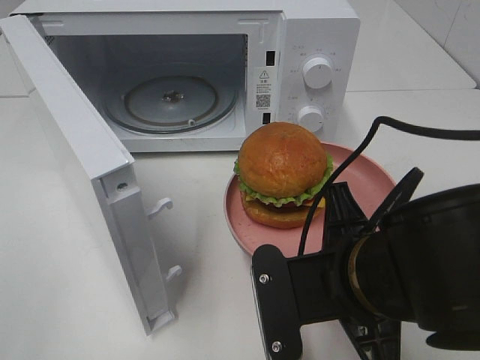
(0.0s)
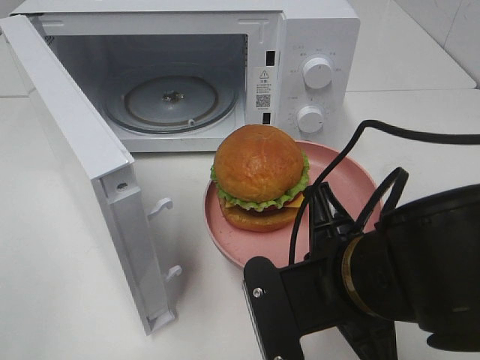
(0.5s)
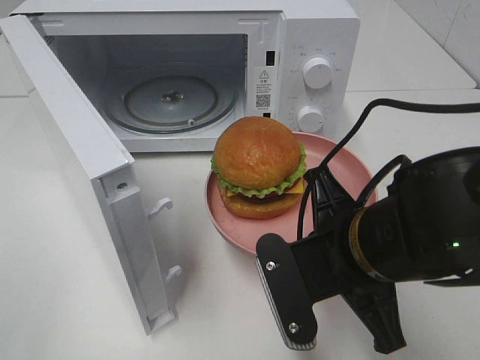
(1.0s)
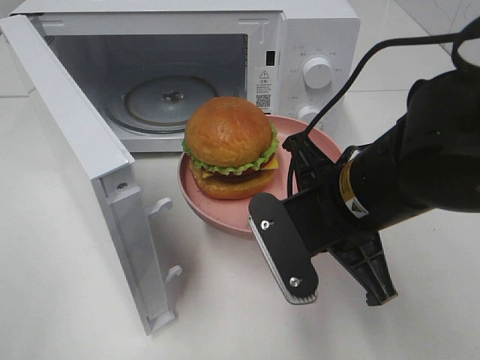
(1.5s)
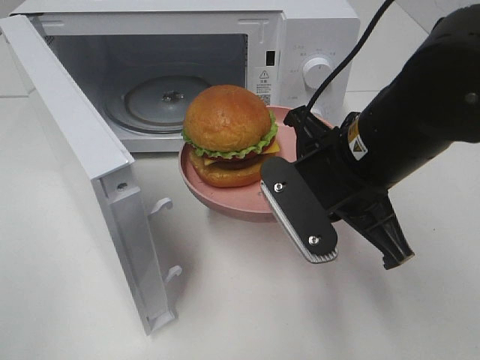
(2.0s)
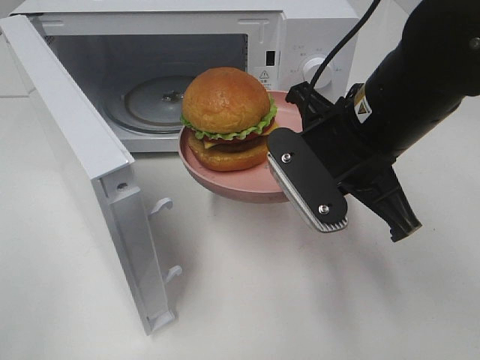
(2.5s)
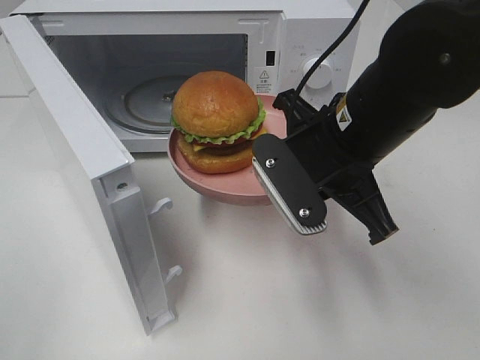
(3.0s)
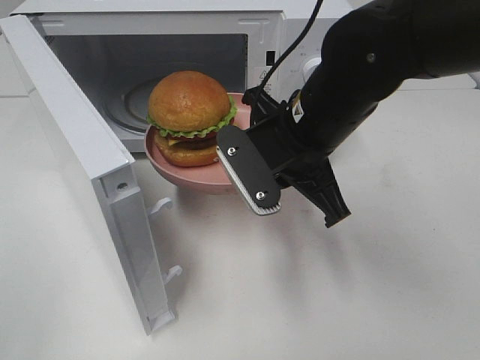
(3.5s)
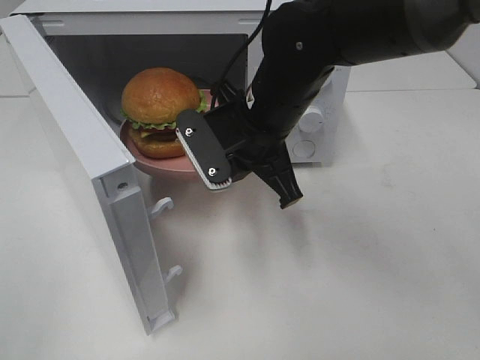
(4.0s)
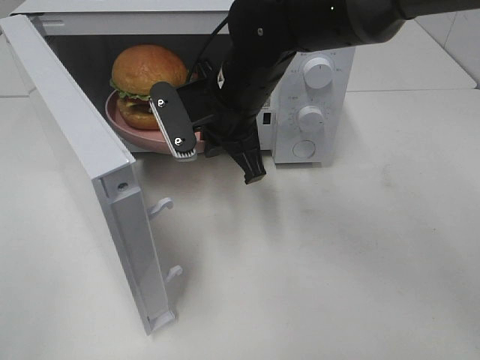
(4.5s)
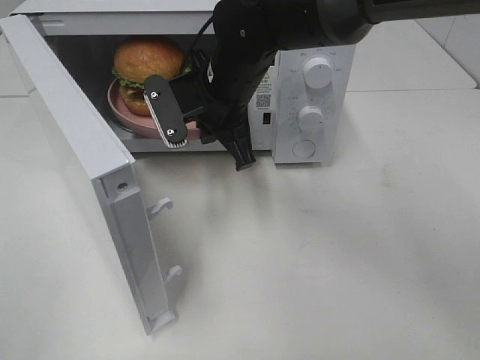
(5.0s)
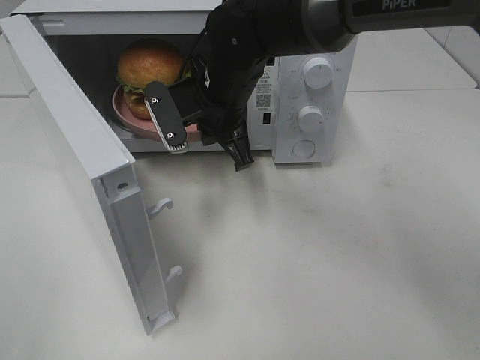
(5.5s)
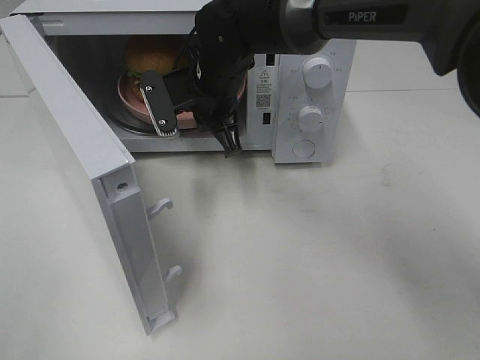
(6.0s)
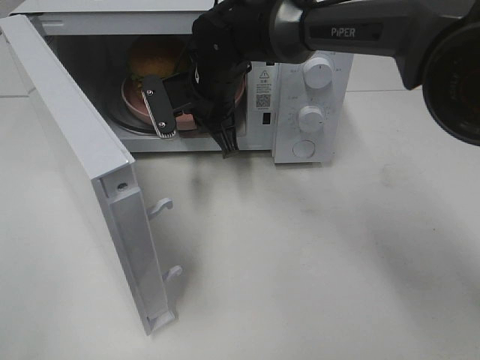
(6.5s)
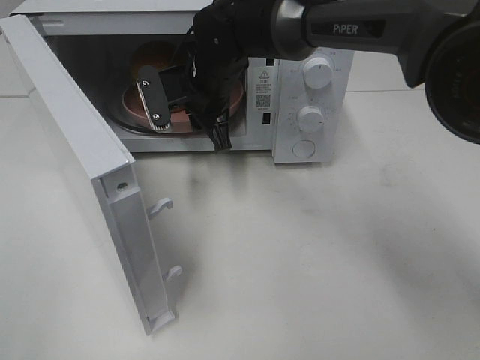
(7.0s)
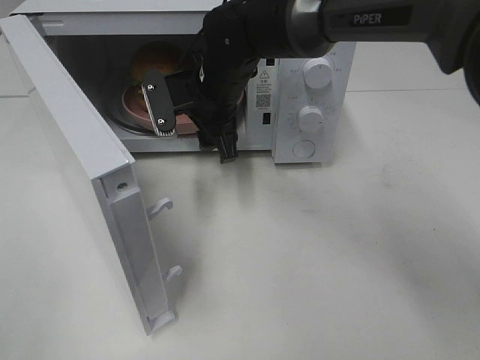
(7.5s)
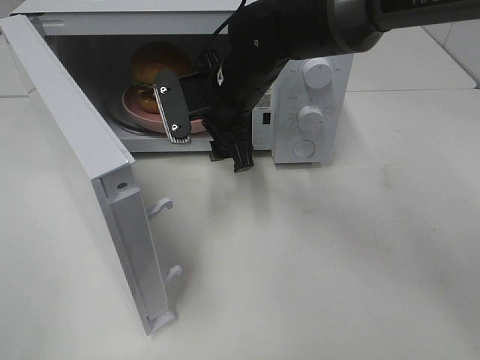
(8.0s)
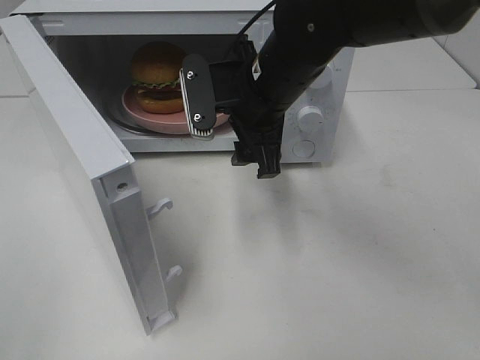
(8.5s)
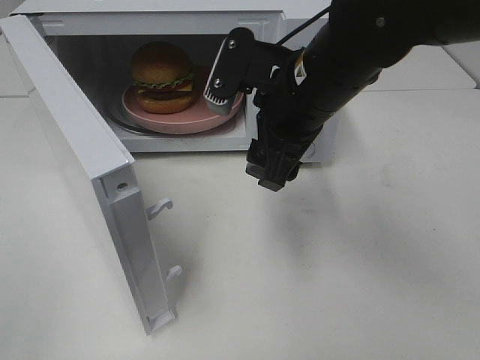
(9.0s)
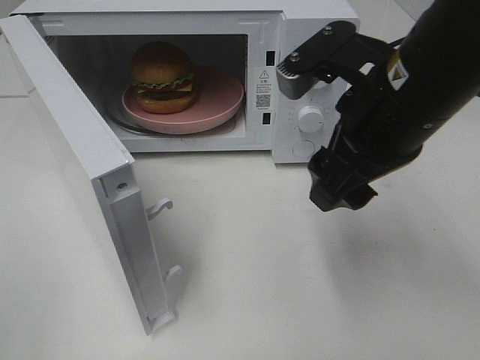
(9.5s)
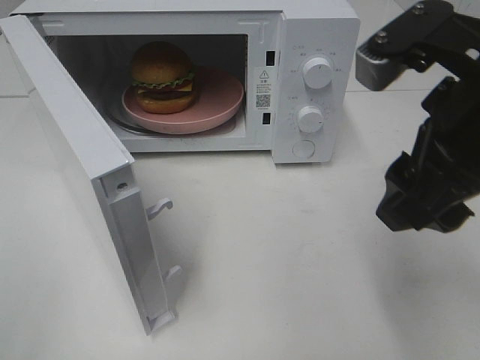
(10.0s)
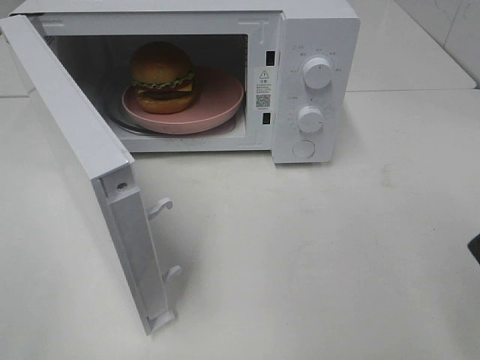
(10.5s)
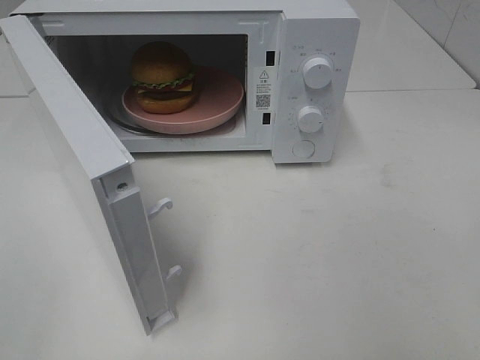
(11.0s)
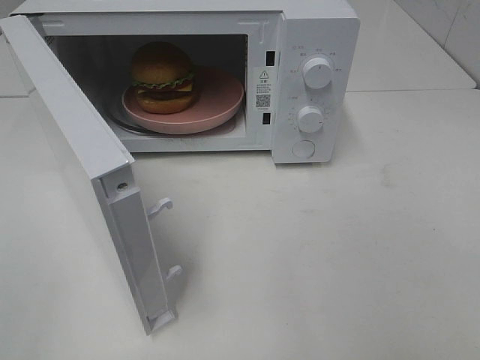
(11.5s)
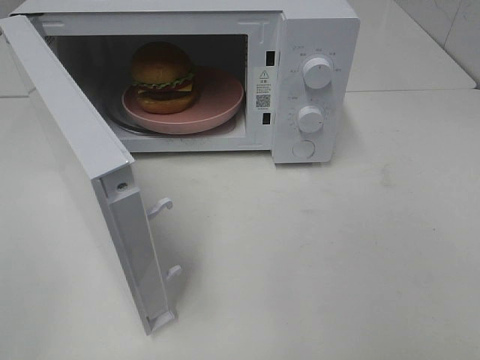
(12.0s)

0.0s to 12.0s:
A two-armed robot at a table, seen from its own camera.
Task of the whole recording: Heat the burger.
Step, 0.0s to 7.0s: Right hand: place the plate in the microwave.
0.0s to 2.0s: The right gripper moves forward and upward, roughly 10 cm.
2.0s to 4.0s: The right gripper moves forward and to the left, some 10 cm.
4.0s to 6.0s: The right gripper travels forward and to the left by some 10 cm.
6.0s to 8.0s: The right gripper opens up.
8.0s to 10.0s: The right gripper travels backward, to the right and upward by roughly 25 cm.
10.0s to 12.0s: The right gripper shifts roughly 20 cm backward and to the right.

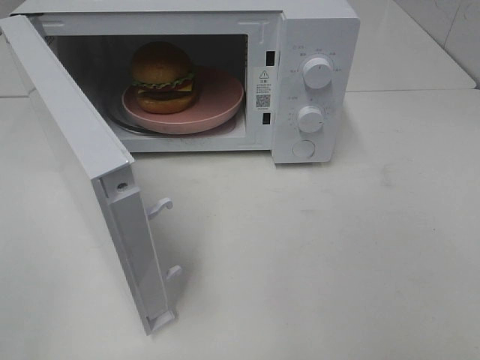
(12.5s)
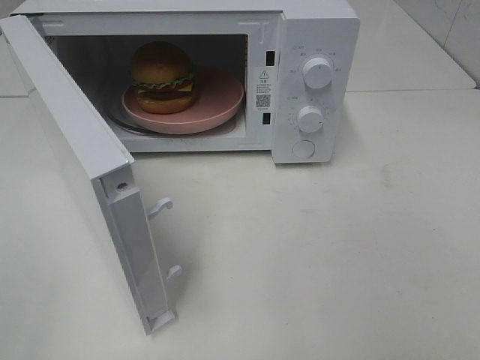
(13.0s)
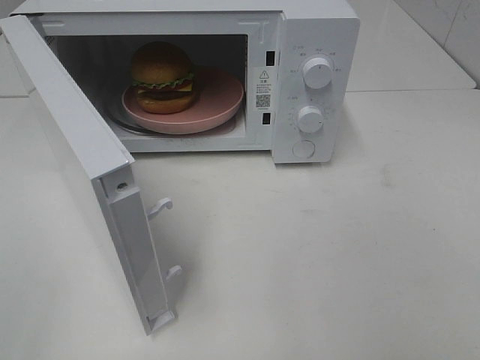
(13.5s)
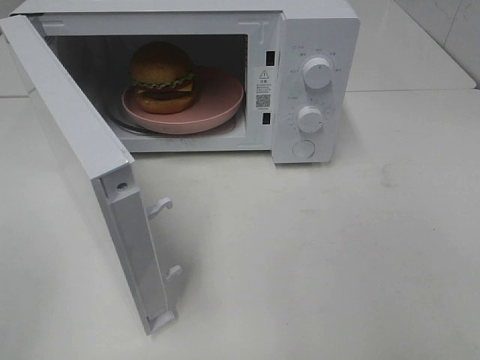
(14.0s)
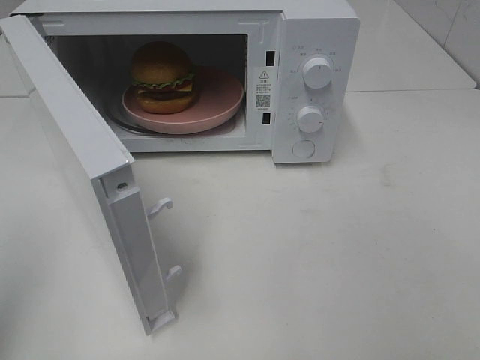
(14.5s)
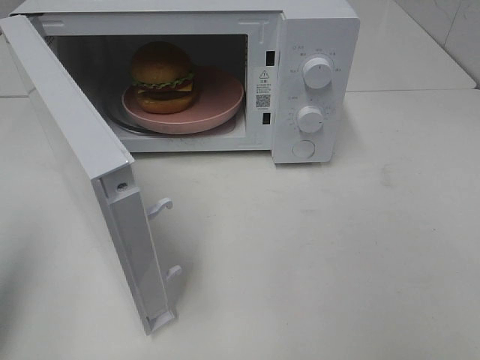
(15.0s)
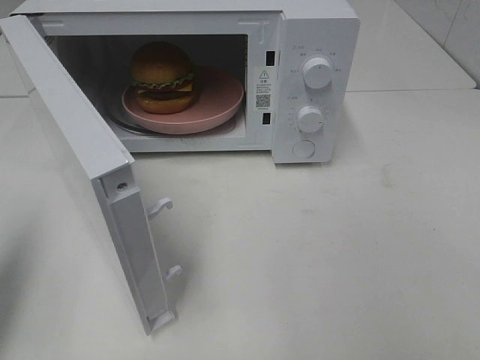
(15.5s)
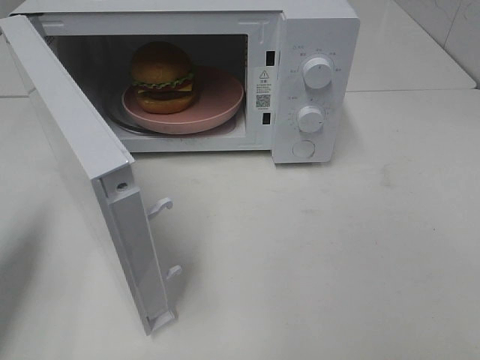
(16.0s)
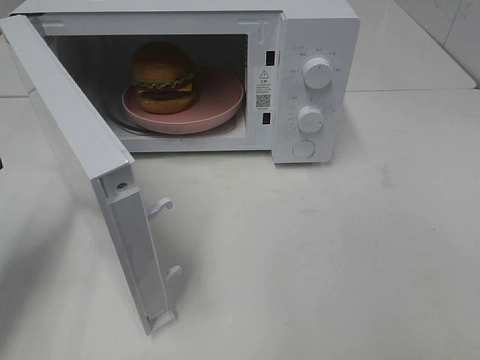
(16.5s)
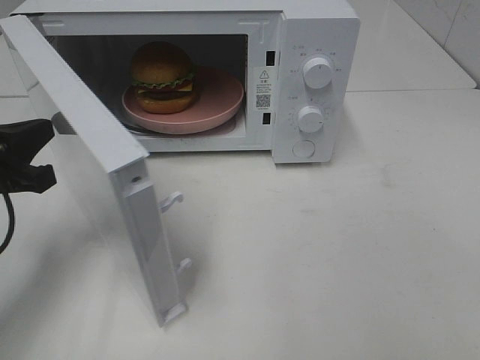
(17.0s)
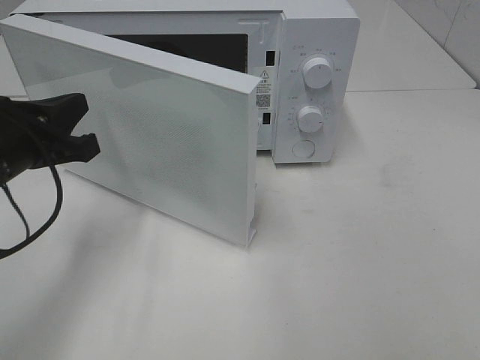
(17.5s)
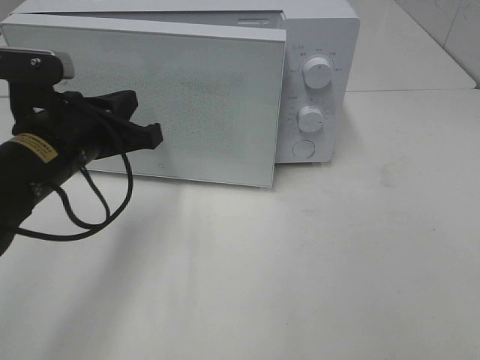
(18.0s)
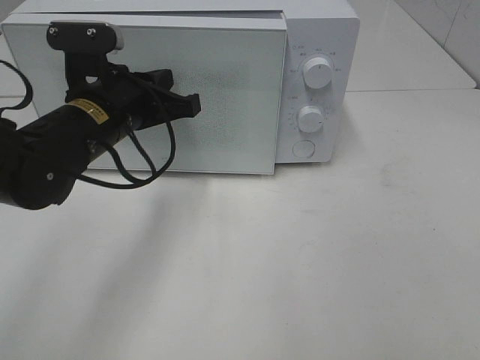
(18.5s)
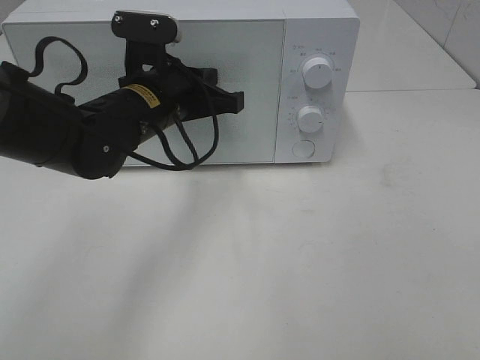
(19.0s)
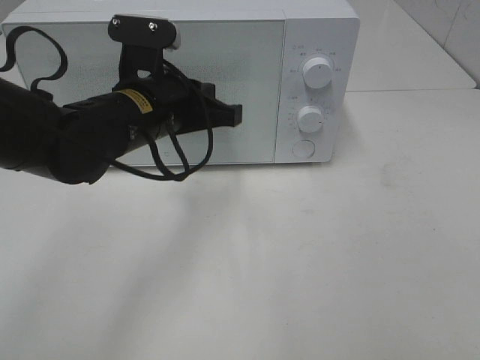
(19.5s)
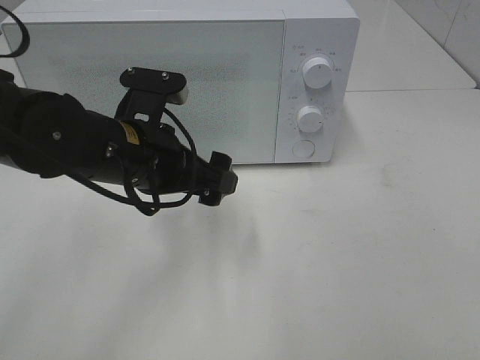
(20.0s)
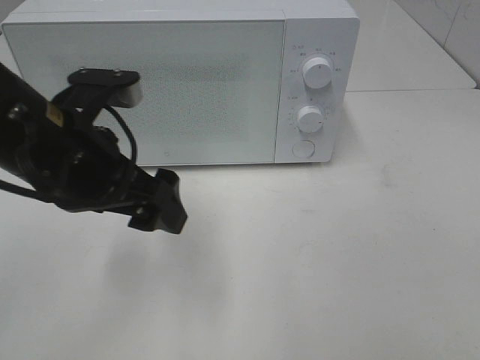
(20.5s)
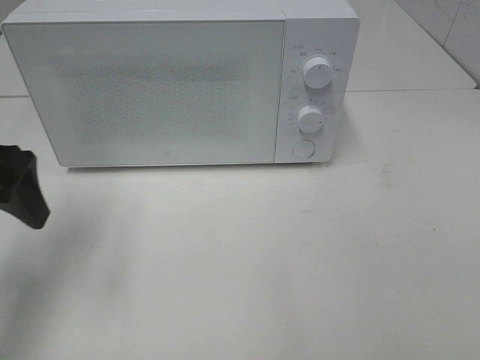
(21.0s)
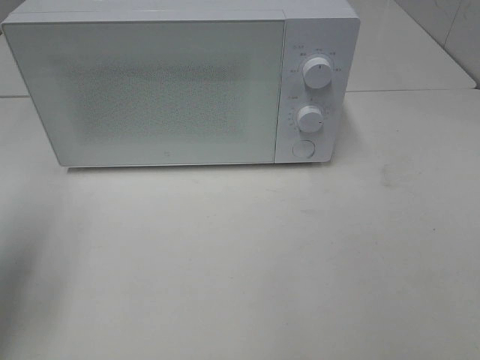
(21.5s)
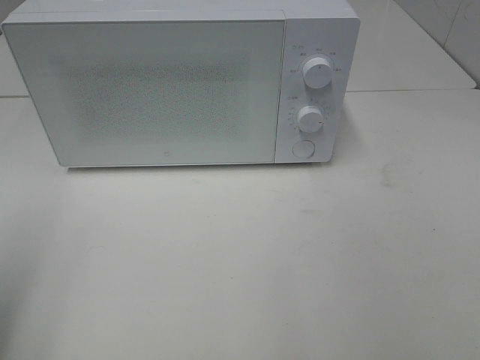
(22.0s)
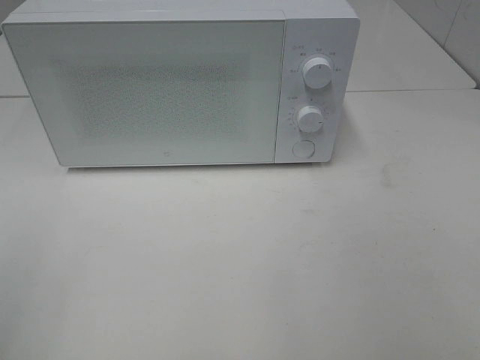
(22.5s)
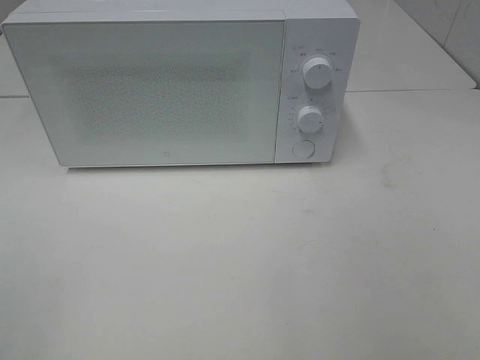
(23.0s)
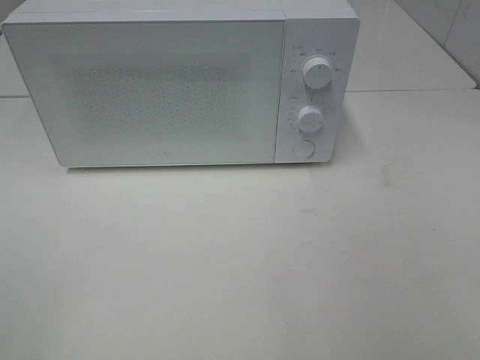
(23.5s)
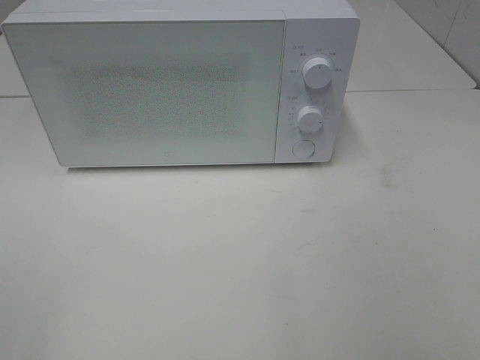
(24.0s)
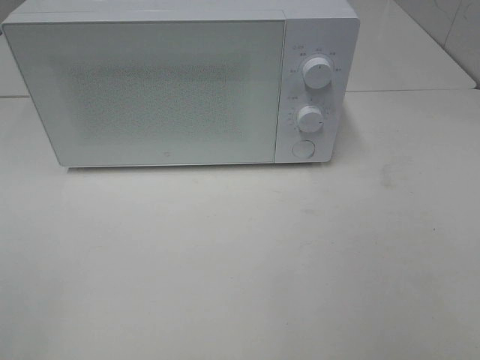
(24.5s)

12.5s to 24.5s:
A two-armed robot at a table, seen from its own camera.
Task of the whole recording: Heat the burger.
Step, 12.5s to 19.5s: Left hand: close the microwave door.
14.5s to 16.5s: The left gripper travels forward and downward by about 20 cm.
16.5s to 18.5s: The left gripper is displaced to the right and forward by approximately 20 cm.
18.5s to 20.5s: The left gripper moves backward, approximately 10 cm, and opens.
20.5s to 22.5s: The left gripper heads backward and to the left, covering some 25 cm.

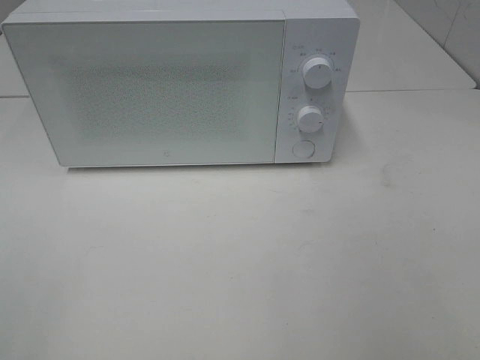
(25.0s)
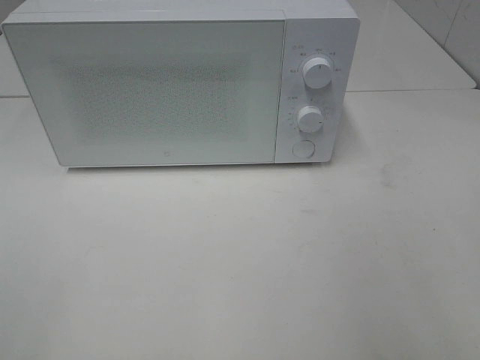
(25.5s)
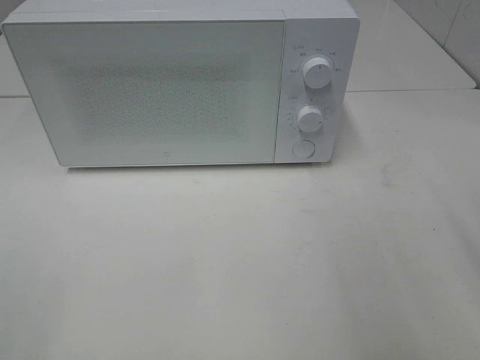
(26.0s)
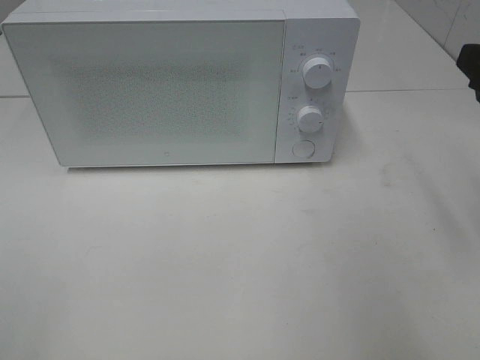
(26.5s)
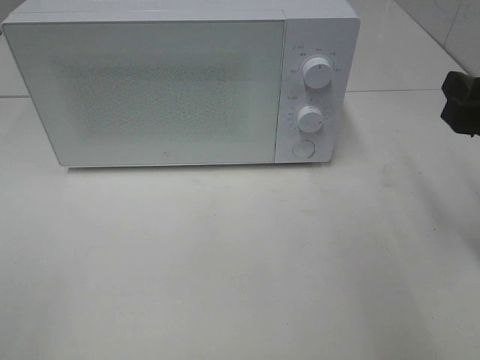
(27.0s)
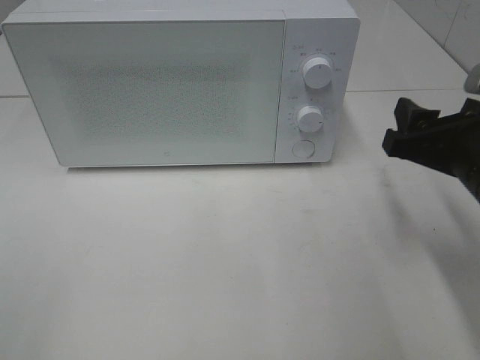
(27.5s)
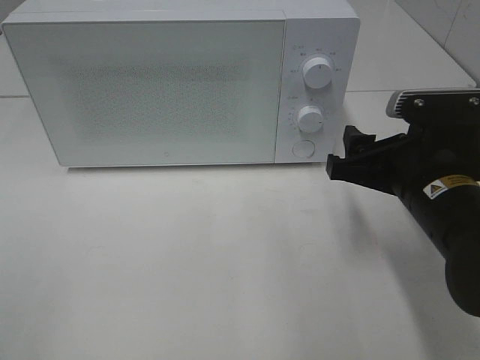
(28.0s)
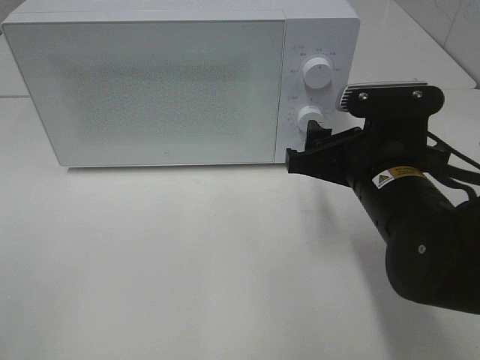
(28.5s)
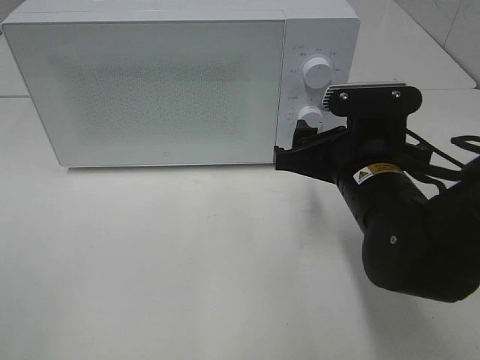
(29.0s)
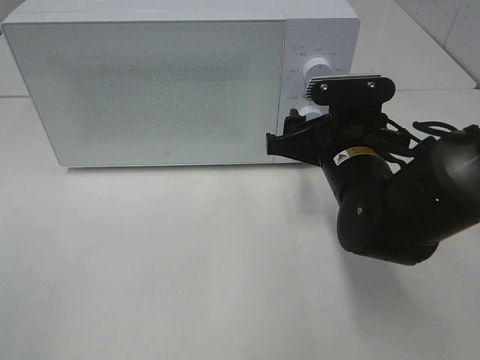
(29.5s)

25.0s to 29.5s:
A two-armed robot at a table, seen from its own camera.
Task of the whole recording: Heat the burger.
25.0s to 27.0s: The right gripper travels forward and downward by approximately 20 cm.
27.0s to 29.5s: The right gripper is displaced to the left, downward and forward by roughly 20 cm.
